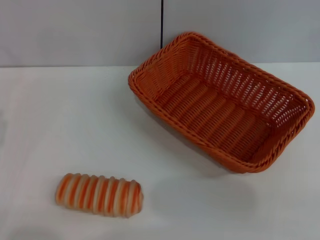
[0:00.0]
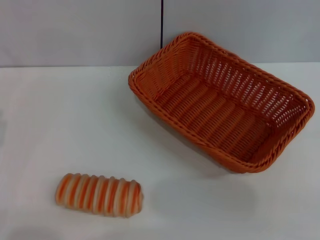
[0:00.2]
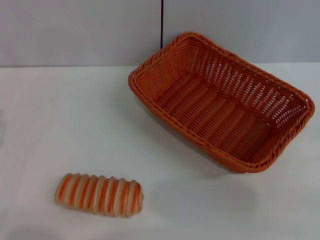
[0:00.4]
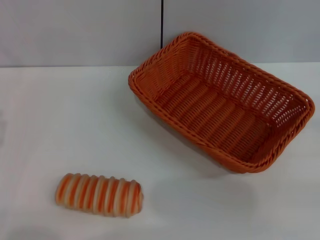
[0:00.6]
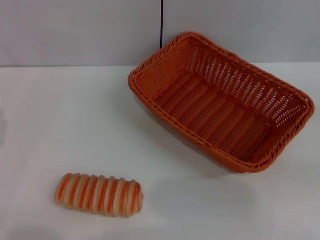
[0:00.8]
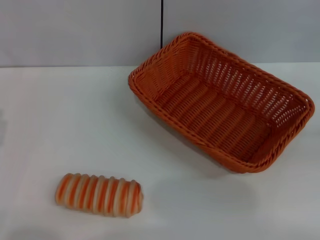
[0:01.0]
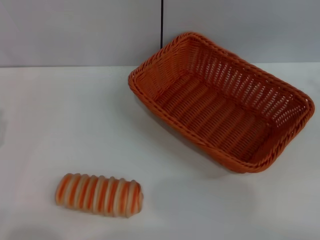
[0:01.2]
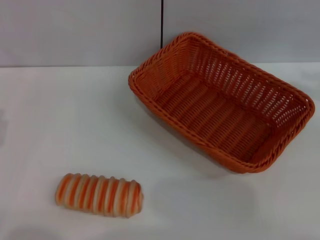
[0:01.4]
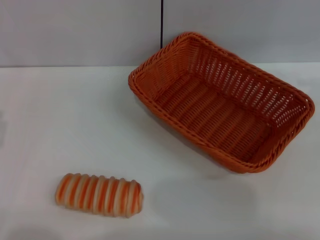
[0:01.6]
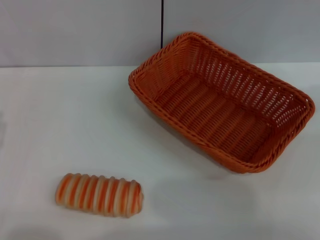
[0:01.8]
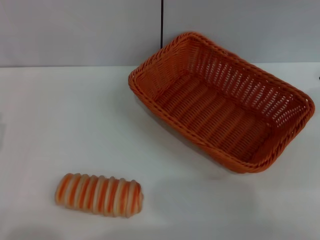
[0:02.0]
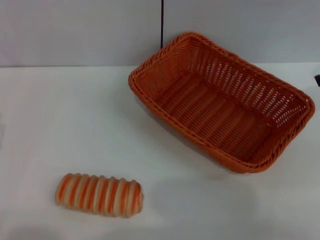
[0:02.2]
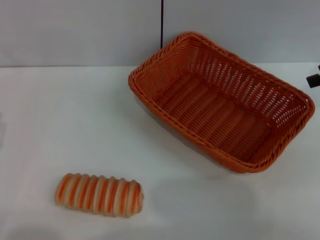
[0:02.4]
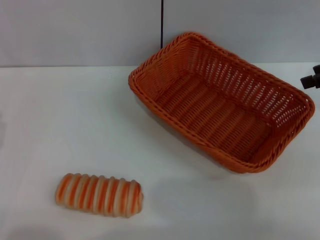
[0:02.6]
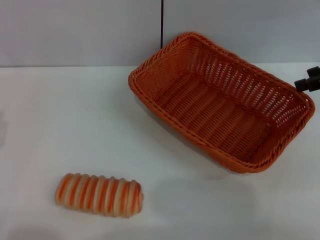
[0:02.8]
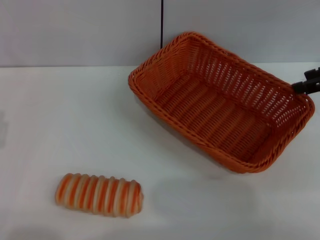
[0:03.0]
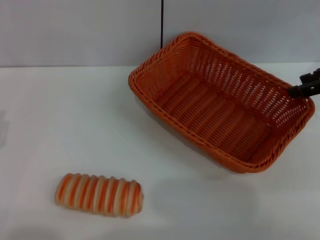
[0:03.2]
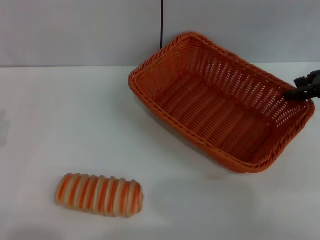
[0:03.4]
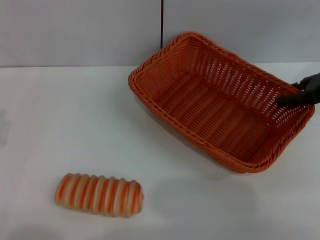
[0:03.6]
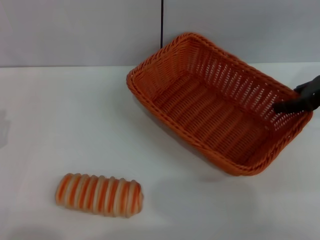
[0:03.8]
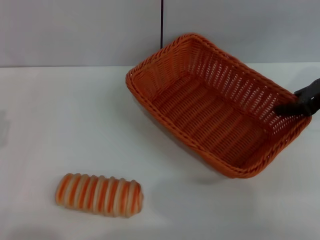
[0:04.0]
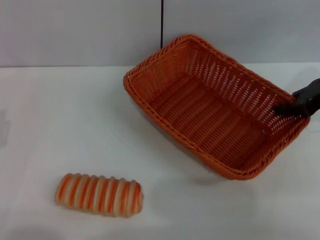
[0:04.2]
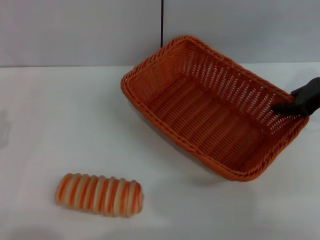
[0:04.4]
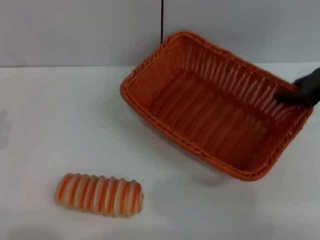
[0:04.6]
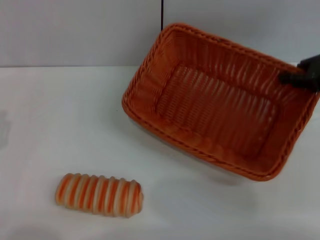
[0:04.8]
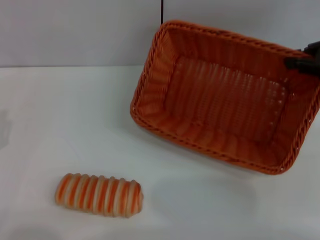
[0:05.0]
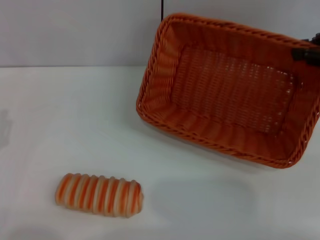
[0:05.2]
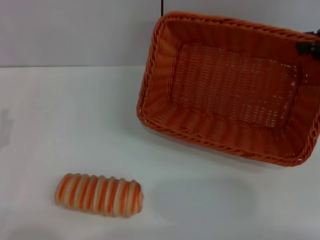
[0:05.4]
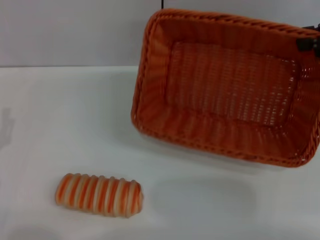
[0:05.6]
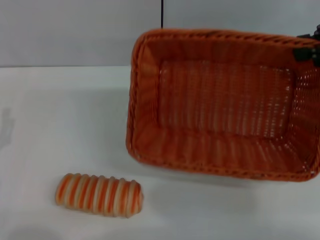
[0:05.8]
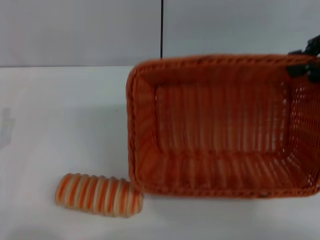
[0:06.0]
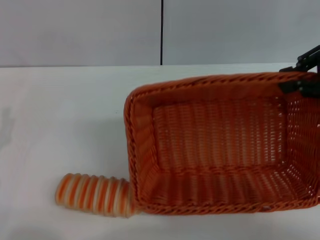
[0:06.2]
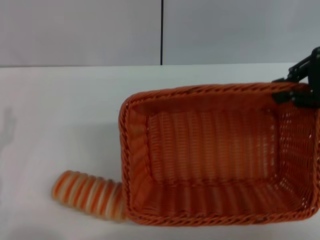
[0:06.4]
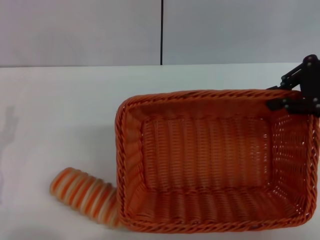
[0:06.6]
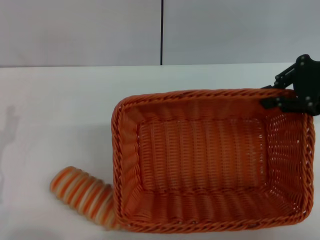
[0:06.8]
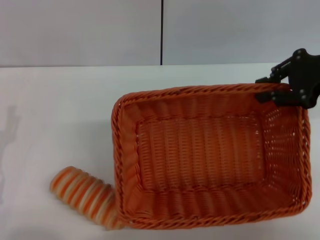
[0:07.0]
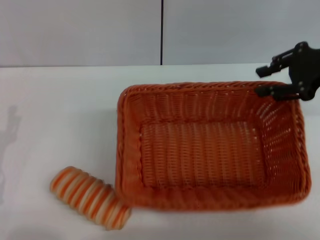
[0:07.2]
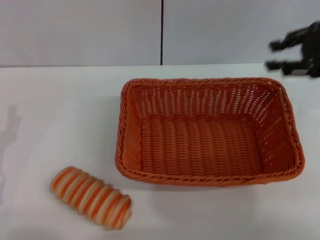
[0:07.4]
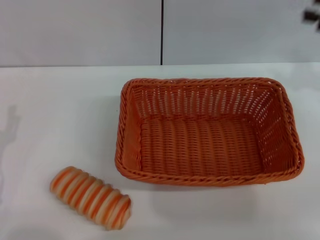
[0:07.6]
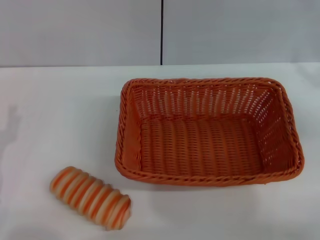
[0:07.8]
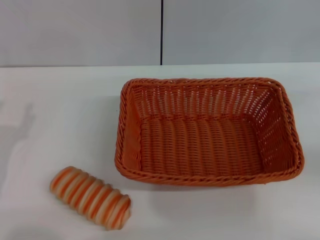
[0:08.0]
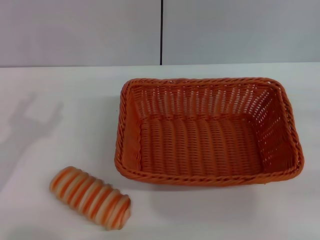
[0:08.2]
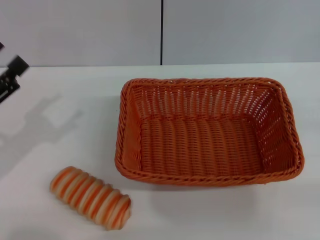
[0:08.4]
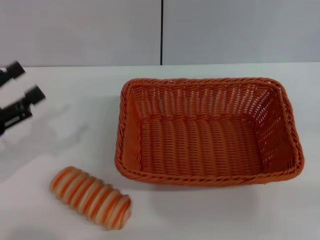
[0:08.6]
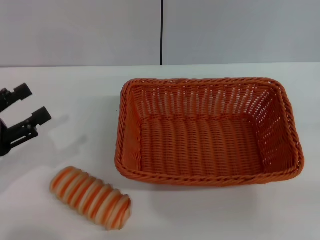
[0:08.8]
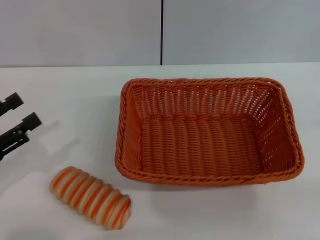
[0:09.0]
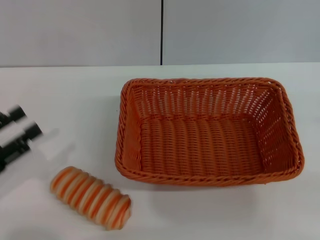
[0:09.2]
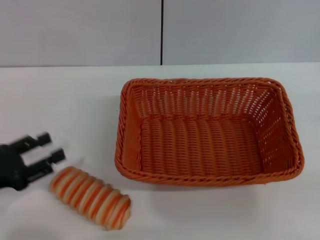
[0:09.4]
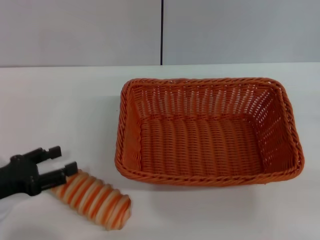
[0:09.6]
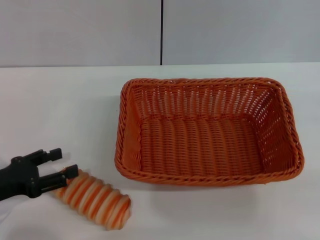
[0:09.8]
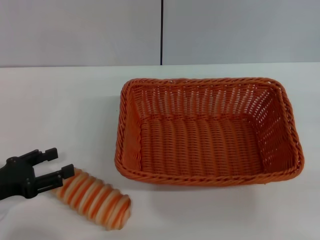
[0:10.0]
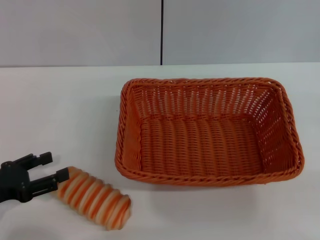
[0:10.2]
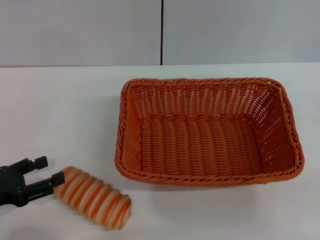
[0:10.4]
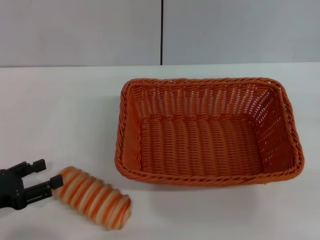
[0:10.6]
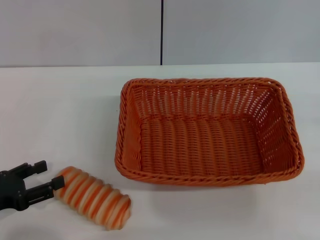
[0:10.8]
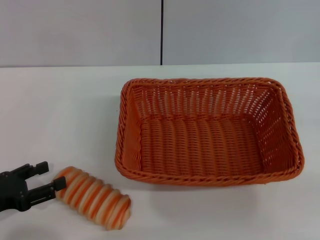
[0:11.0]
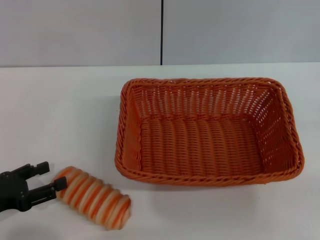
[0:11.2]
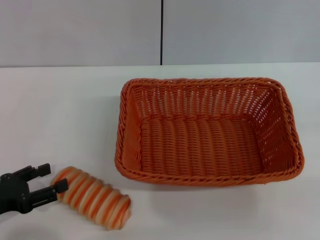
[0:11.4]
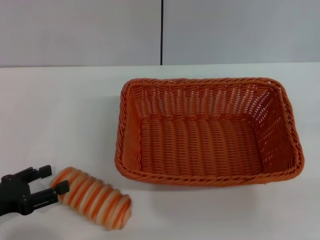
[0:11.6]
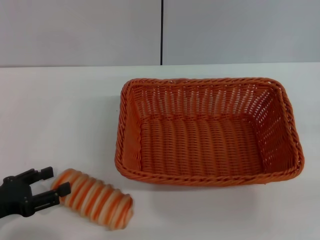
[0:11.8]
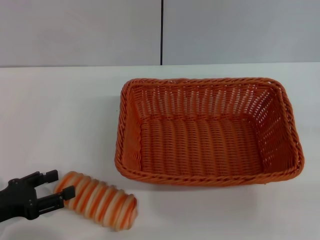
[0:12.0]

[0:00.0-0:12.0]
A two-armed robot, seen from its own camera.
Step, 0:00.0 to 0:05.4: Pick up the light basket with the right gripper.
Step, 0:05.6 to 0:07.2: Place the light basket in the center of view with the right gripper.
0:01.6 to 0:03.0: The right gripper is displaced downward by roughly 5 cm.
0:03.0 to 0:04.4: The right gripper ends up about 5 cm from where it was, and closes its fingers.
0:04.4 to 0:06.0: The right gripper heads upward, covering some 10 cm.
0:06.0 to 0:07.6: The right gripper moves to the right, some 5 cm, and opens up.
0:07.6 to 0:09.0: The left gripper shifts by approximately 5 cm.
0:10.4 to 0:12.0: The grippers make only small movements.

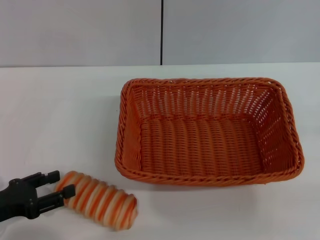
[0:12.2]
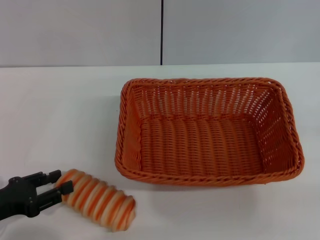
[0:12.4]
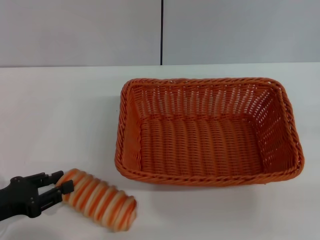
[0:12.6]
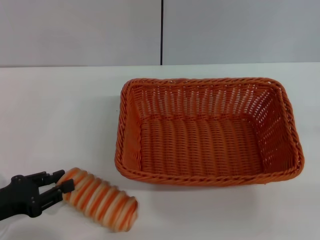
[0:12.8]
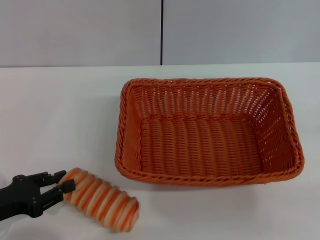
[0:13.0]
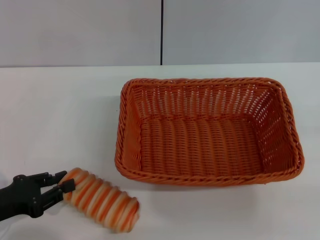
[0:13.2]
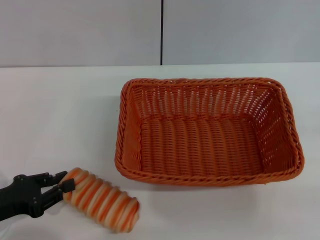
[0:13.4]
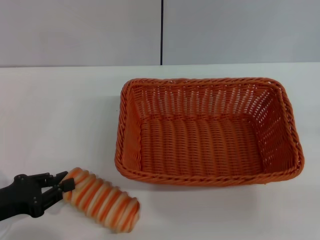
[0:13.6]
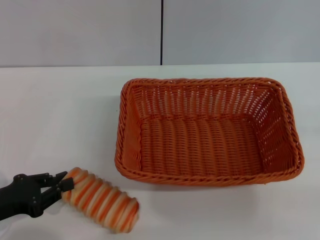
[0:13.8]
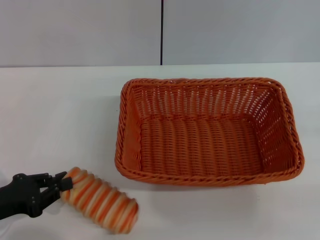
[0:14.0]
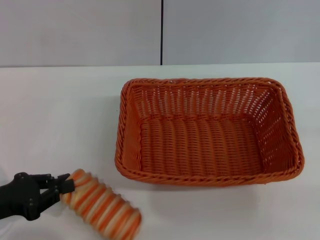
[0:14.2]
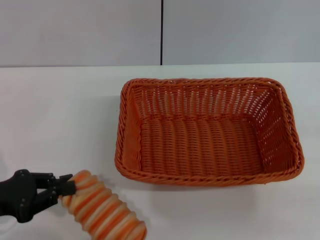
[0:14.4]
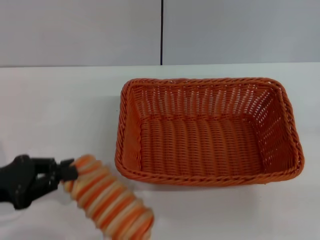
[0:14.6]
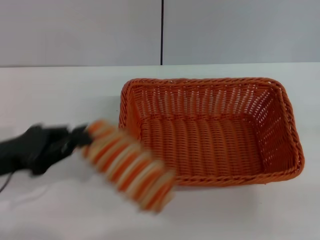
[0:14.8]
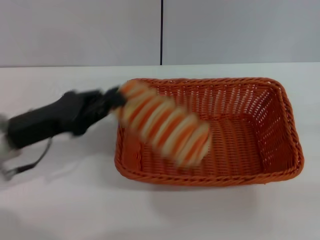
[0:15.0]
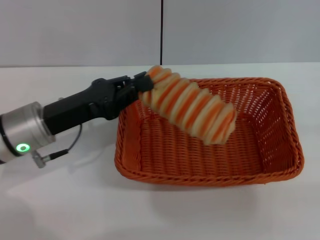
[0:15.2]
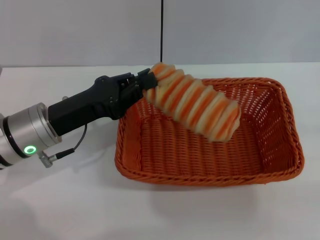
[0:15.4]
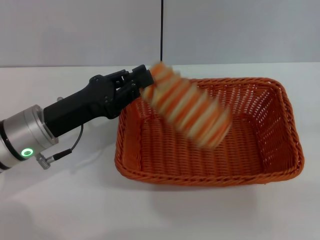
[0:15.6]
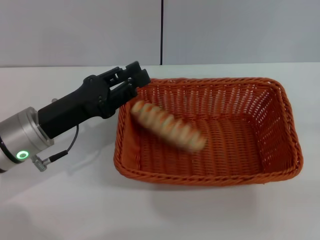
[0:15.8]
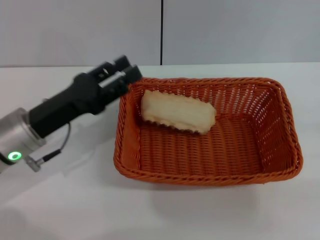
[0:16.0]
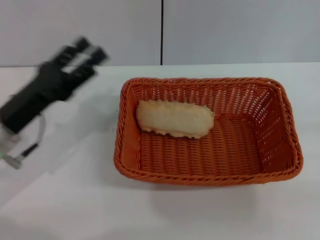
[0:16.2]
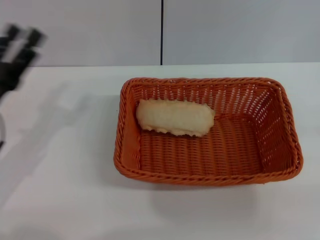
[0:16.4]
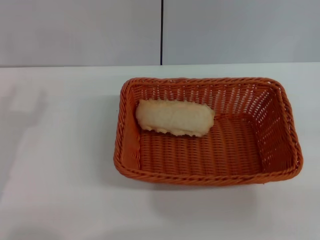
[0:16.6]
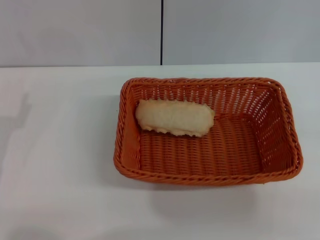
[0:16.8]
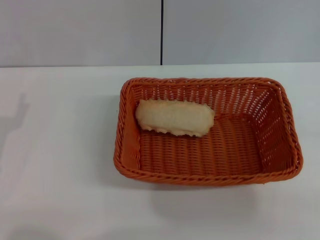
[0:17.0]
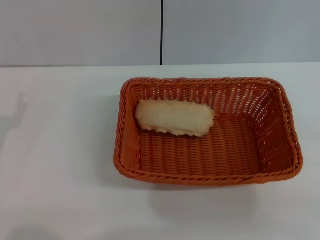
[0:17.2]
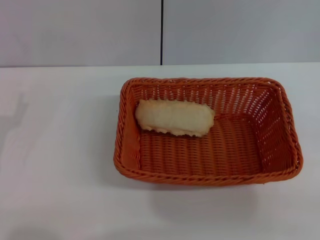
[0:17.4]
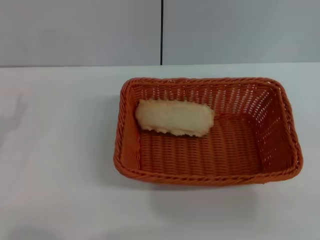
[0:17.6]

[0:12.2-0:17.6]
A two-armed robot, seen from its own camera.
Step, 0:12.2 to 0:14.4: Pick up the long bread with the left gripper.
Step, 0:14.6 to 0:16.0: Place the long bread into the light basket with the left gripper.
0:12.2 to 0:13.6: The left gripper closes.
0:13.6 to 0:15.0: The left gripper heads forward, to the right and upward, covering roughly 15 cm.
0:15.0 to 0:16.2: The left gripper opens up.
0:16.2 to 0:17.6: The left gripper heads to the left and backward, covering approximately 10 cm.

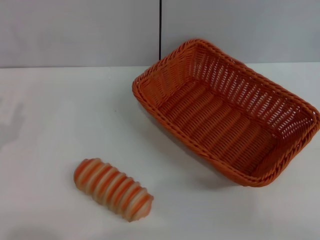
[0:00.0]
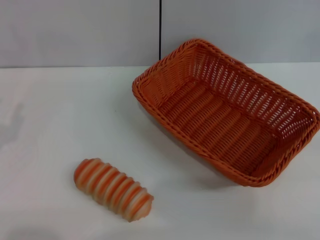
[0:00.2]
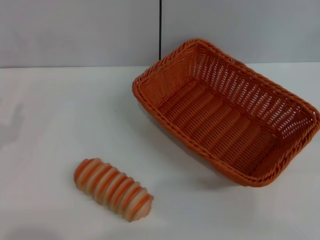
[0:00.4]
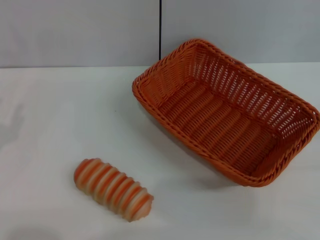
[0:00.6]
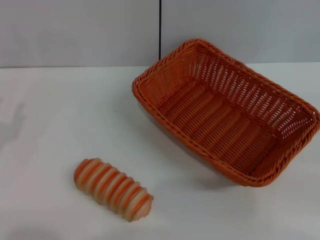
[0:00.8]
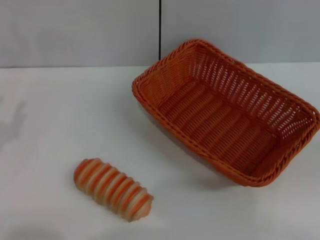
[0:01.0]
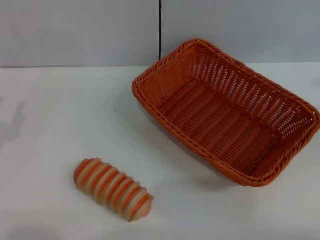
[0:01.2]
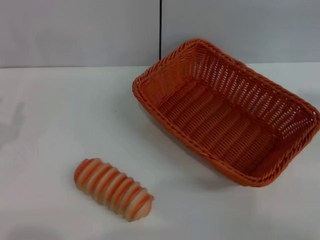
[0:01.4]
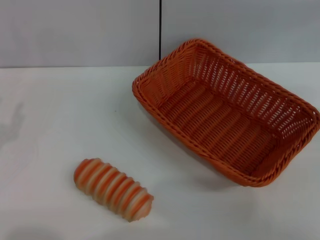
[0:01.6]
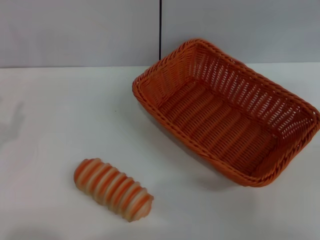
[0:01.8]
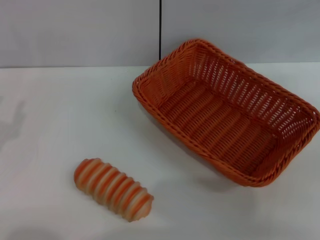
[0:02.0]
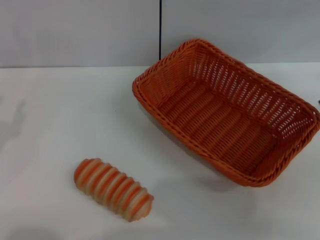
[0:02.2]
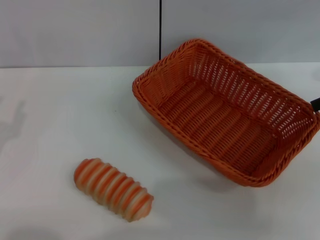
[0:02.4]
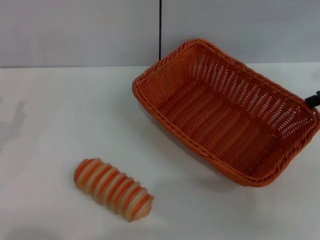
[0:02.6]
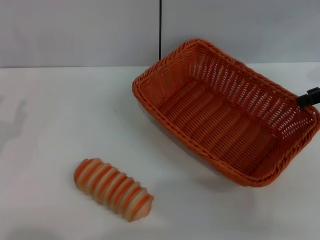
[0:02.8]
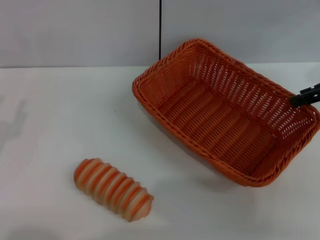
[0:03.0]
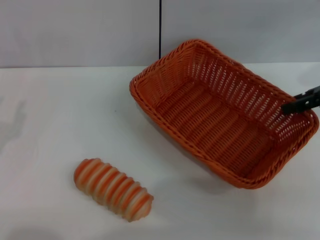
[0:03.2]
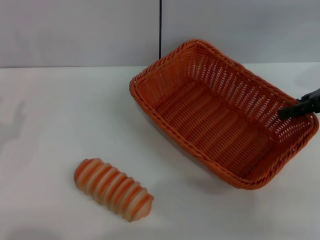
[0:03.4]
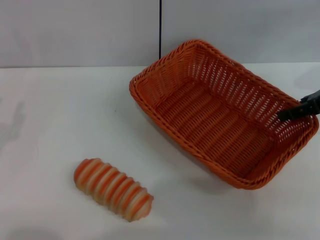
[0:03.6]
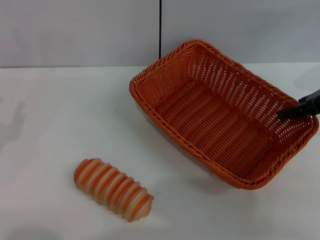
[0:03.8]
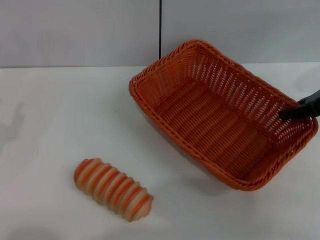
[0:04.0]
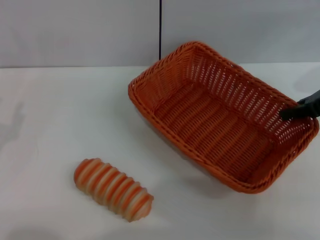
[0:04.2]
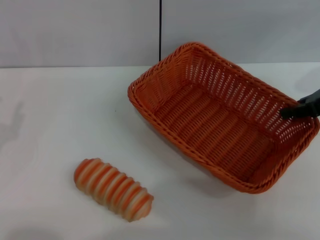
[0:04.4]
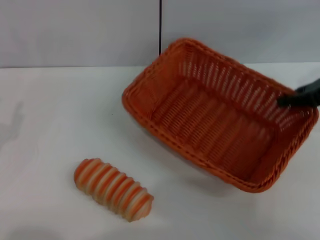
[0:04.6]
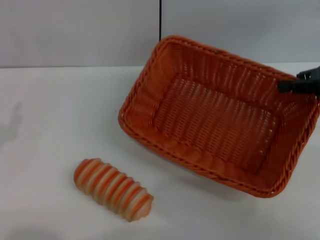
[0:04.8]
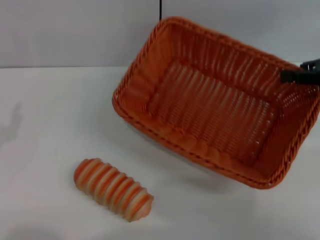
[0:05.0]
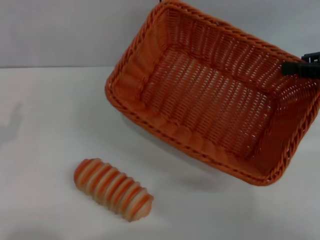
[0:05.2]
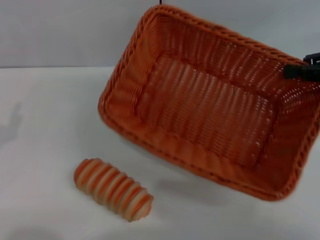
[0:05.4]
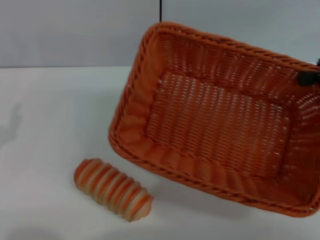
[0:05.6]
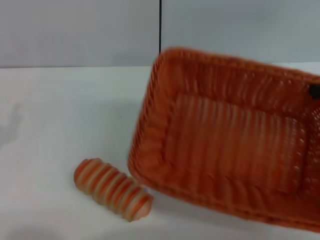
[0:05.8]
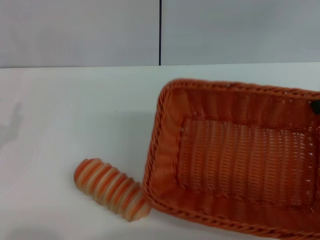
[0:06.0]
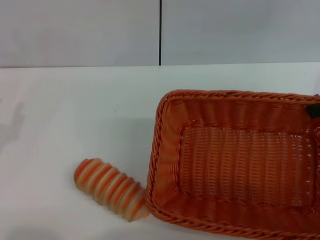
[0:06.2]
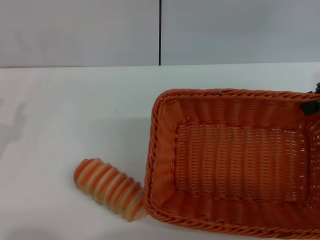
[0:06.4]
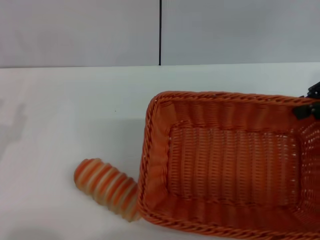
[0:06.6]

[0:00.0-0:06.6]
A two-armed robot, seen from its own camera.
Step, 0:00.0 to 0:05.6: Pick up the light basket with the right gripper.
0:01.6 to 0:03.2: The right gripper travels to the left and forward by some 10 cm.
0:03.2 to 0:05.0: The right gripper closes its fingers.
